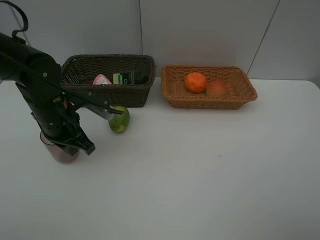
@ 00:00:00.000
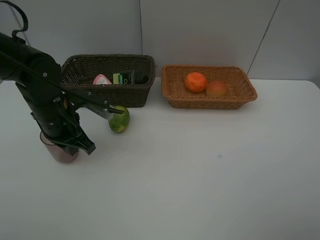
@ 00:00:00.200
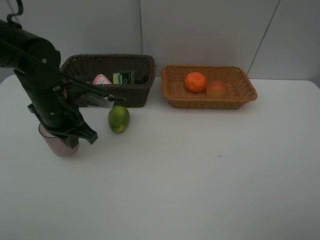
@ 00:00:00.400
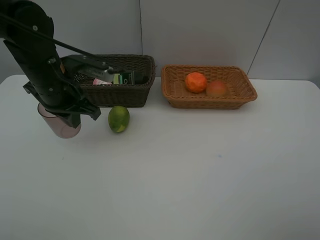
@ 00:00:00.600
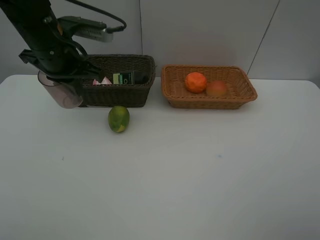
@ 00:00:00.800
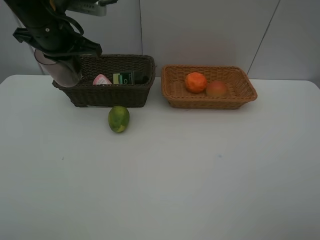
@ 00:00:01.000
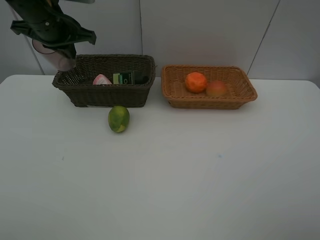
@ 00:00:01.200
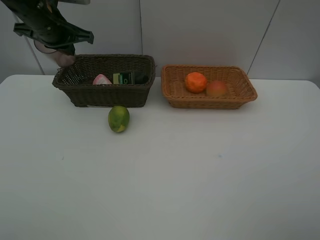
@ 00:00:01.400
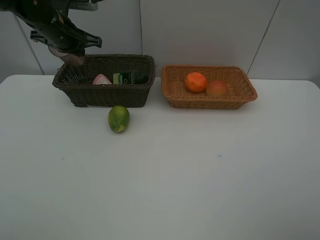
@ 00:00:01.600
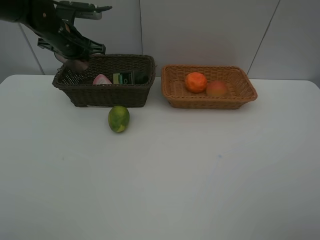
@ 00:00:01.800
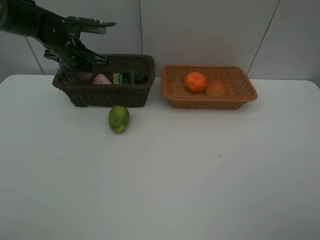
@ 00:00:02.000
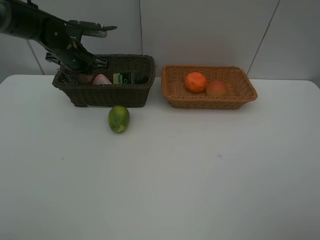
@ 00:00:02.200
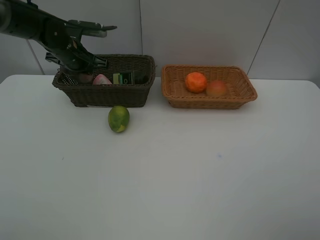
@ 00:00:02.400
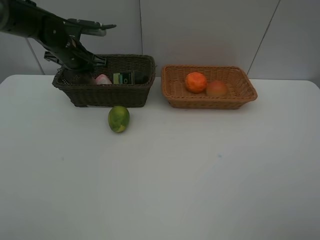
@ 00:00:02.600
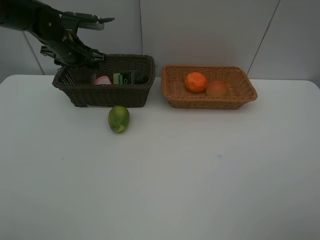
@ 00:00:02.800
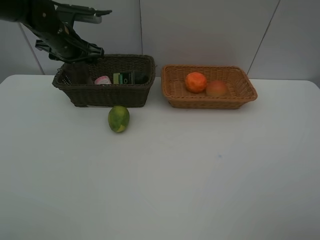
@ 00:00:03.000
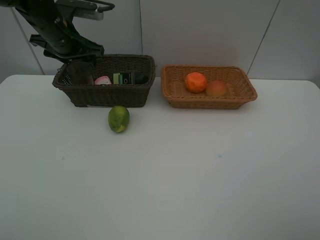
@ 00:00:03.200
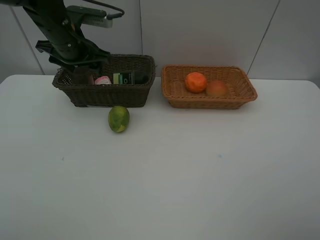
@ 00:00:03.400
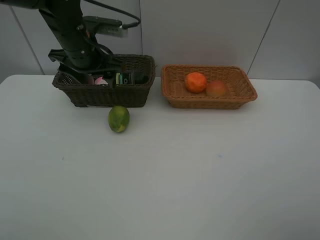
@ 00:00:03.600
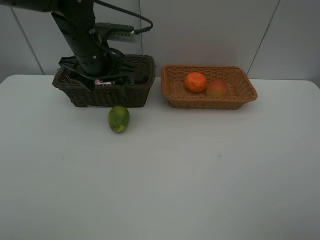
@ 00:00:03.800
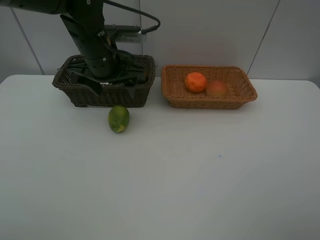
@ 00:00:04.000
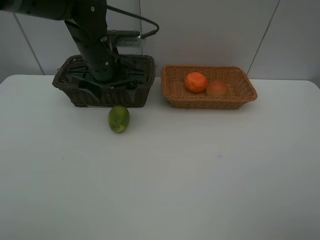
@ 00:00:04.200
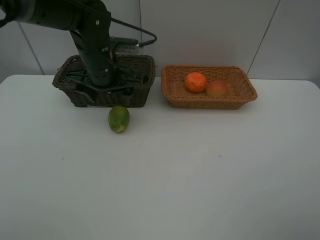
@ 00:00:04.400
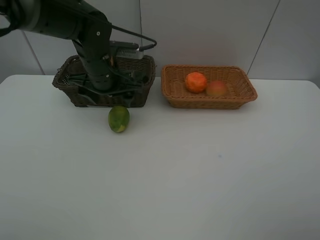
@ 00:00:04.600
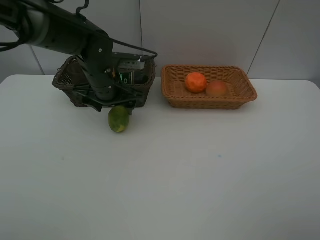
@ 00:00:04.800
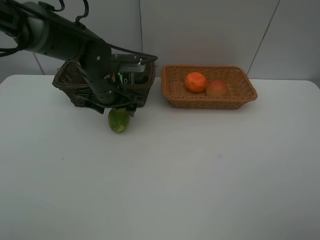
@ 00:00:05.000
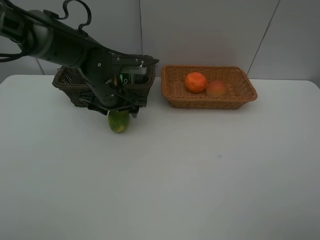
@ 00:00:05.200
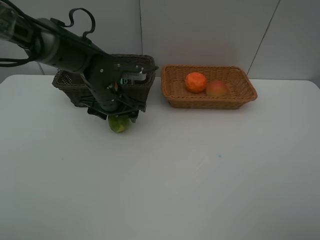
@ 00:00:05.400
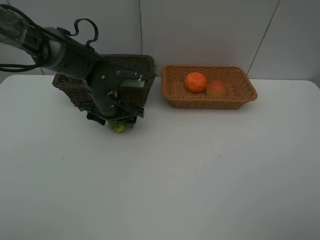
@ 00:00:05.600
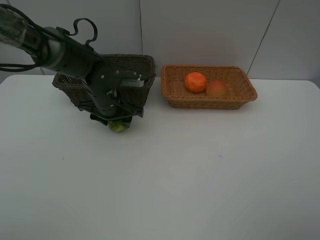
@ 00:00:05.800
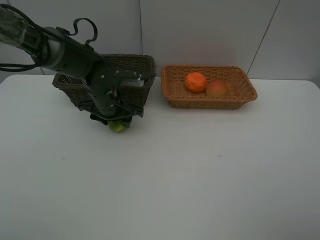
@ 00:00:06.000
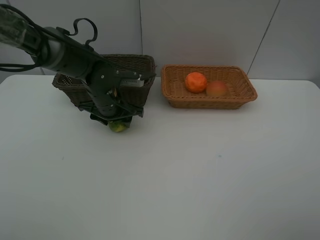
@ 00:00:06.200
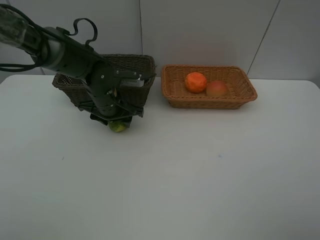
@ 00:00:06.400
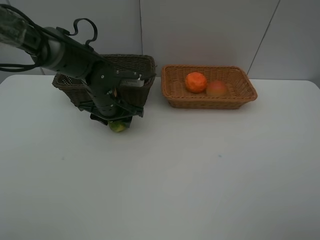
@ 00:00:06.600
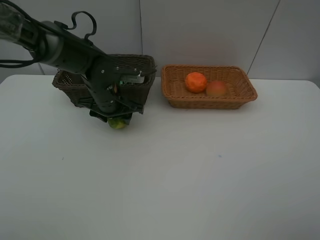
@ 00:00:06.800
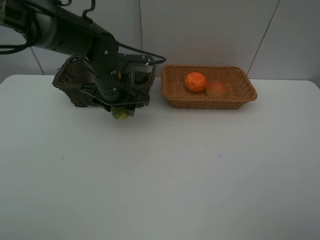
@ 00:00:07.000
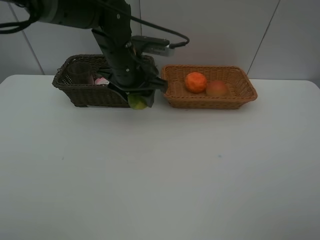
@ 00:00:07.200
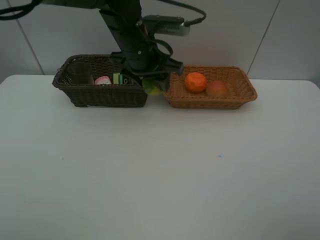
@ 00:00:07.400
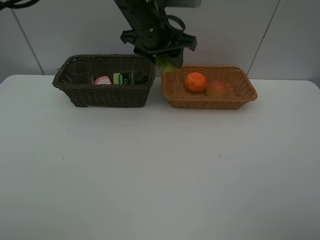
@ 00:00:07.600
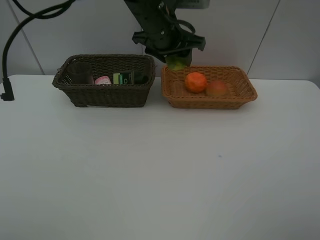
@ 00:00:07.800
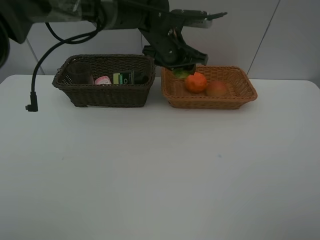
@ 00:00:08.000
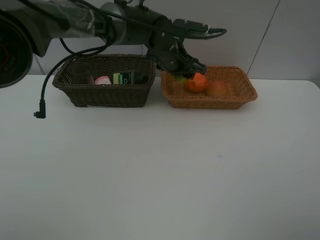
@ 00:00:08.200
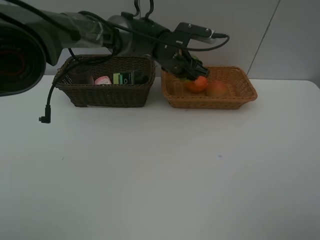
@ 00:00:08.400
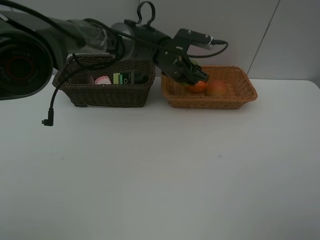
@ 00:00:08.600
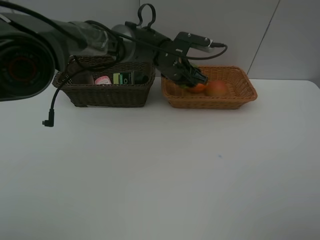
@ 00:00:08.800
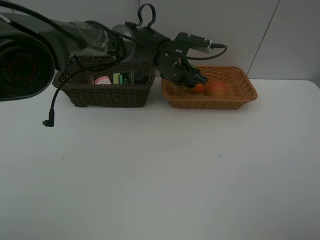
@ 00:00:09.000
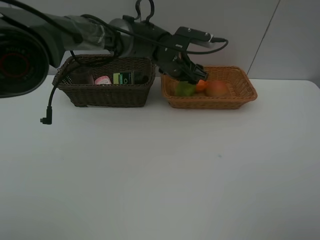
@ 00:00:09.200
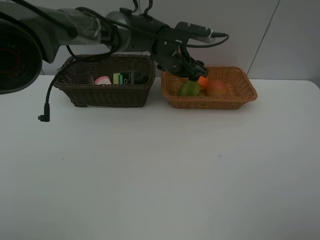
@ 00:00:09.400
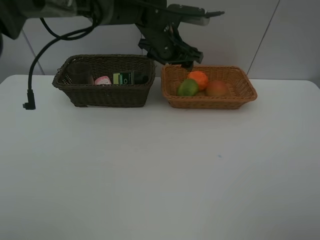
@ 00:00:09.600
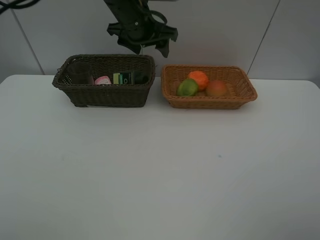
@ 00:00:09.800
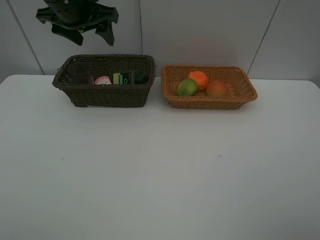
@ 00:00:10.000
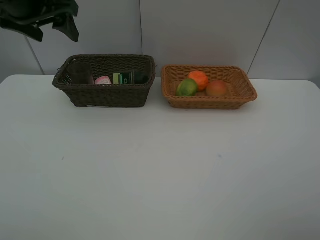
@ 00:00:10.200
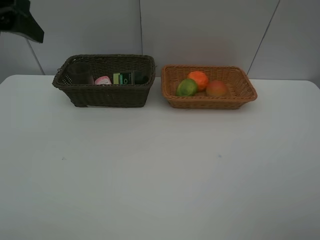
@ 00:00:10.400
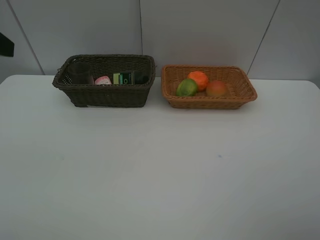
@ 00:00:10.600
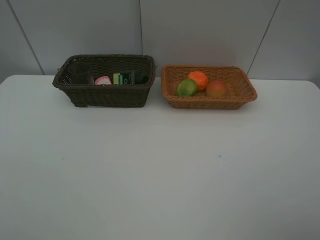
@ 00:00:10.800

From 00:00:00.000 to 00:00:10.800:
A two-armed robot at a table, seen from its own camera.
Task of the whole recording: place multiple objects separately in different baskets.
From 00:00:00.000 to 00:00:01.600: The left gripper is displaced forward and upward by approximately 20 cm.
From 00:00:01.600 to 00:00:03.000: The left gripper opens.
From 00:00:03.000 to 00:00:04.600: The left gripper heads to the right and backward, covering roughly 15 cm.
From 00:00:04.600 to 00:00:06.200: The left gripper shifts about 5 cm downward.
From 00:00:06.200 to 00:00:07.800: The left gripper moves upward and to the right, approximately 20 cm.
From 00:00:07.800 to 00:00:09.200: The left gripper is displaced downward by about 10 cm.
From 00:00:09.200 to 00:00:10.800: The left gripper goes approximately 50 cm backward, to the left and upward.
